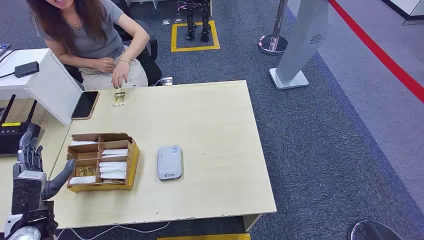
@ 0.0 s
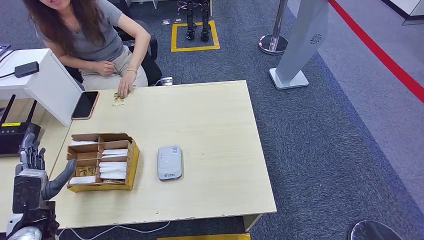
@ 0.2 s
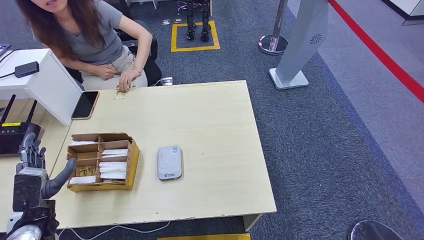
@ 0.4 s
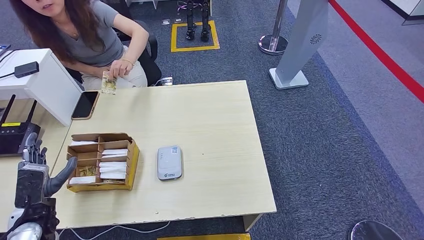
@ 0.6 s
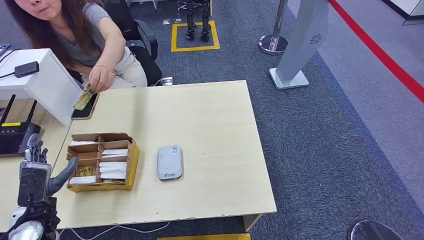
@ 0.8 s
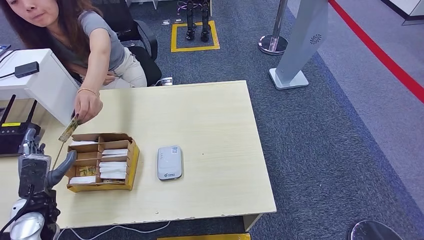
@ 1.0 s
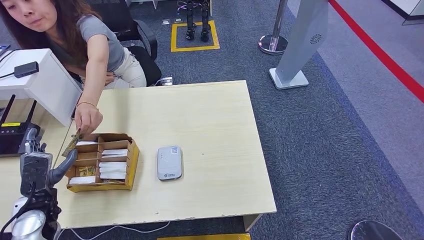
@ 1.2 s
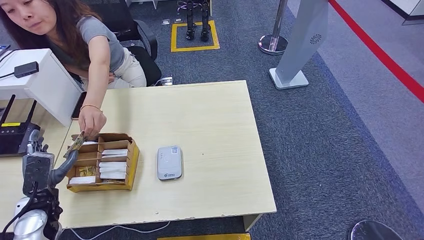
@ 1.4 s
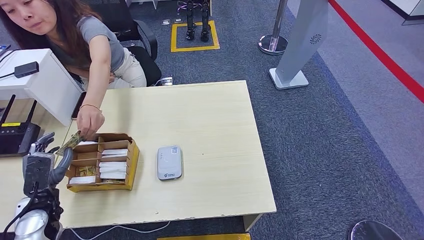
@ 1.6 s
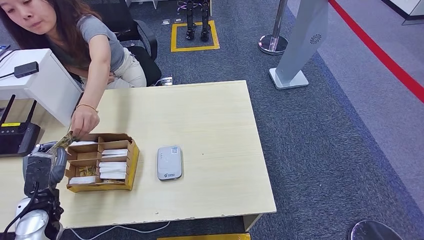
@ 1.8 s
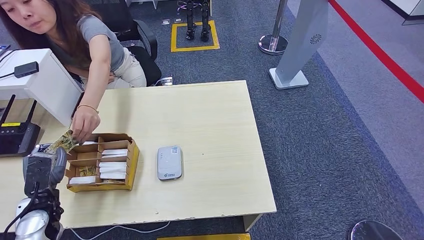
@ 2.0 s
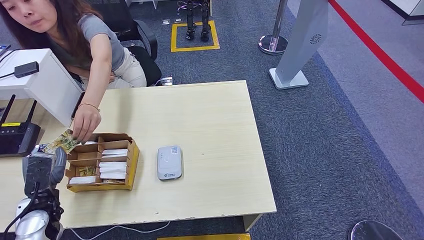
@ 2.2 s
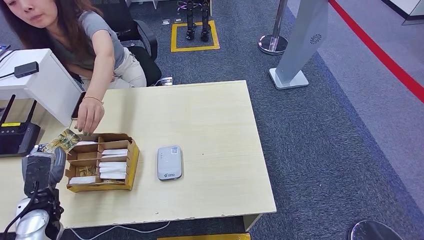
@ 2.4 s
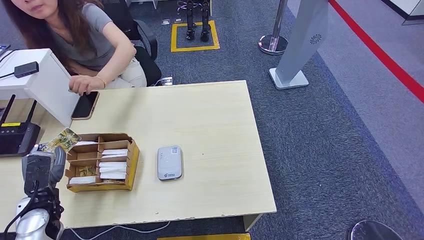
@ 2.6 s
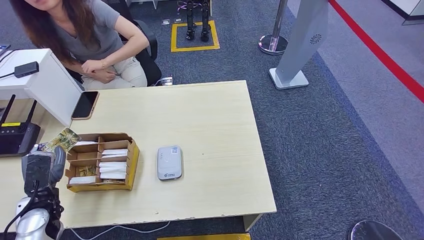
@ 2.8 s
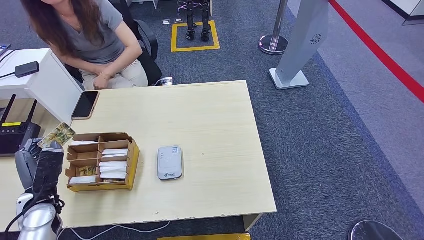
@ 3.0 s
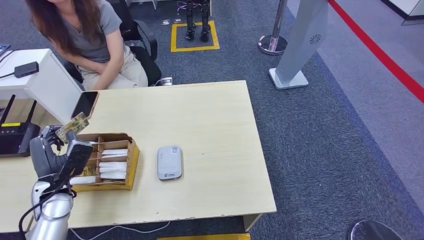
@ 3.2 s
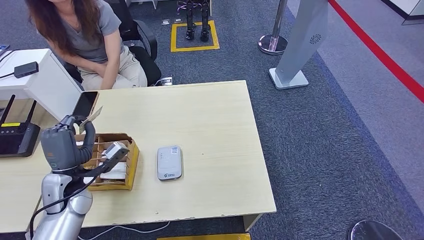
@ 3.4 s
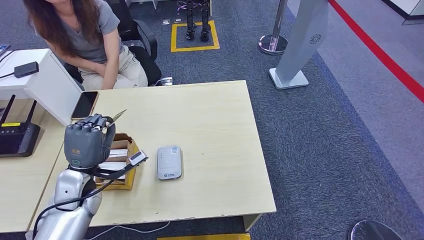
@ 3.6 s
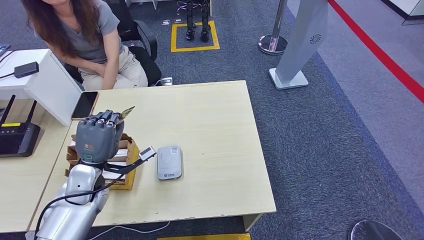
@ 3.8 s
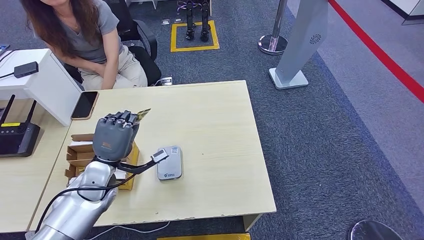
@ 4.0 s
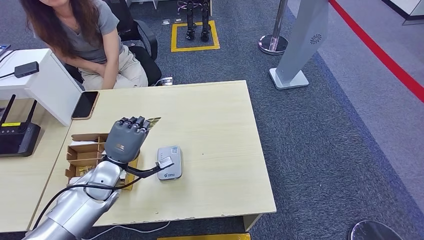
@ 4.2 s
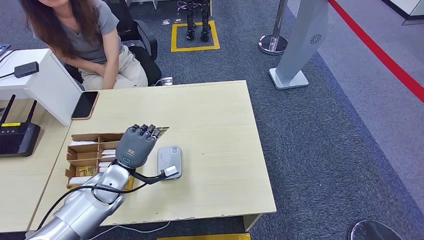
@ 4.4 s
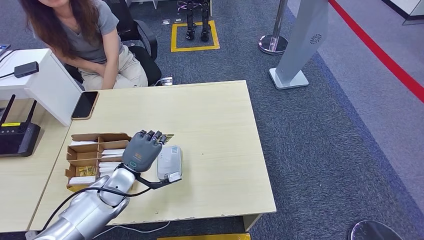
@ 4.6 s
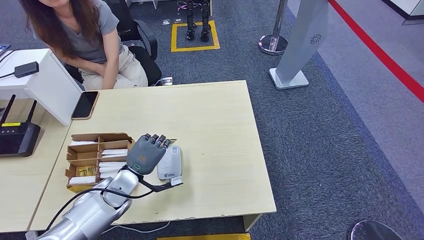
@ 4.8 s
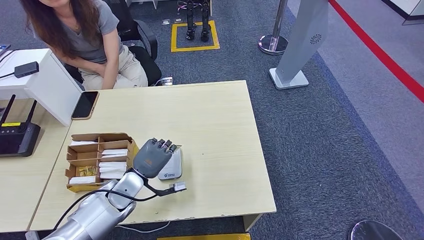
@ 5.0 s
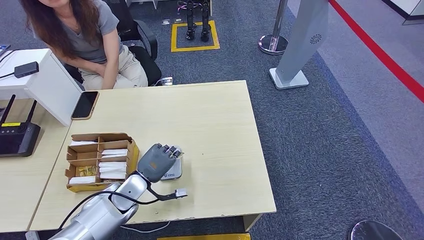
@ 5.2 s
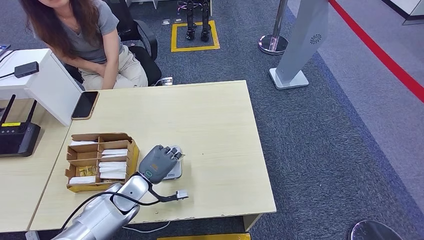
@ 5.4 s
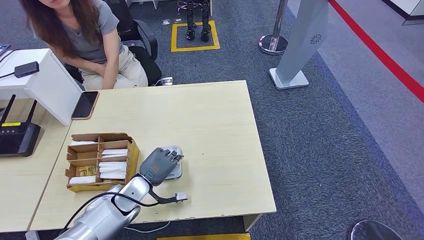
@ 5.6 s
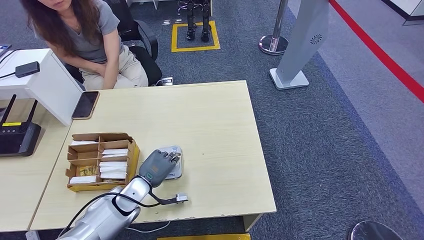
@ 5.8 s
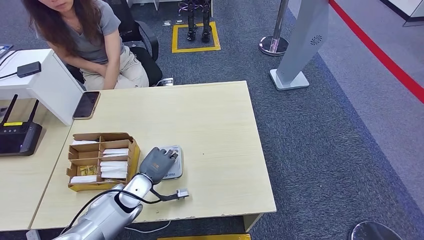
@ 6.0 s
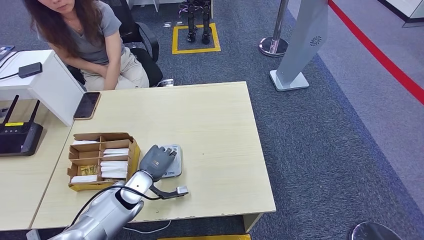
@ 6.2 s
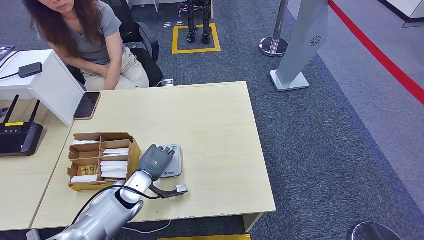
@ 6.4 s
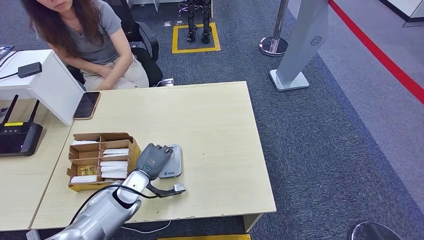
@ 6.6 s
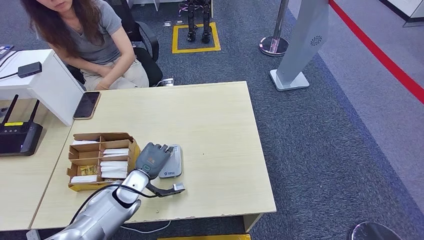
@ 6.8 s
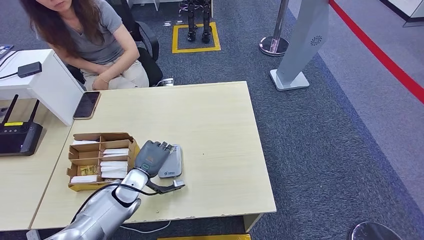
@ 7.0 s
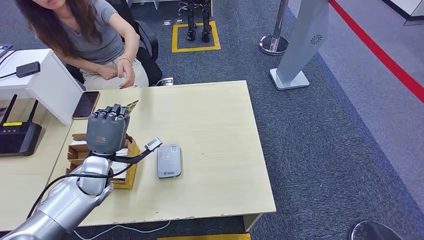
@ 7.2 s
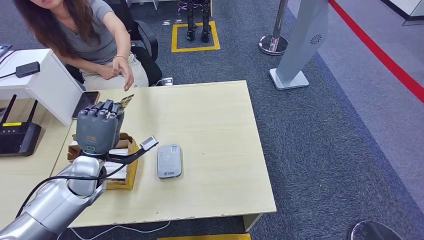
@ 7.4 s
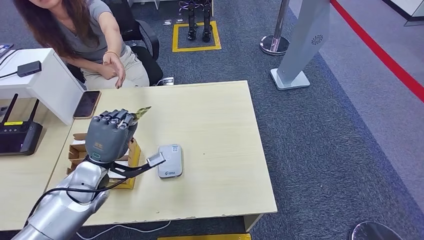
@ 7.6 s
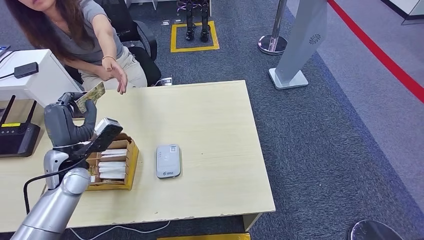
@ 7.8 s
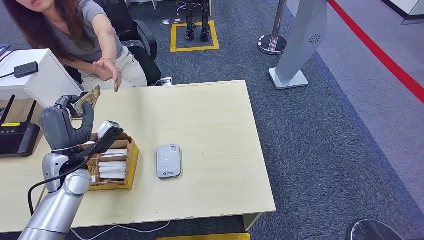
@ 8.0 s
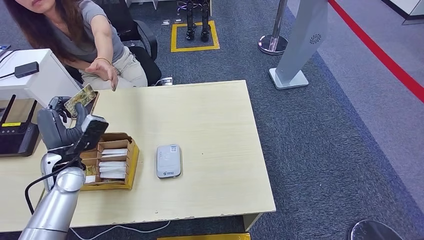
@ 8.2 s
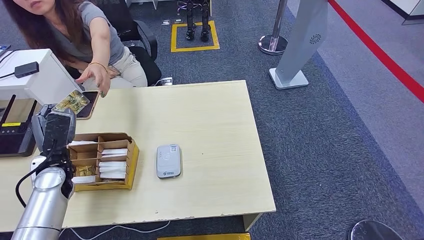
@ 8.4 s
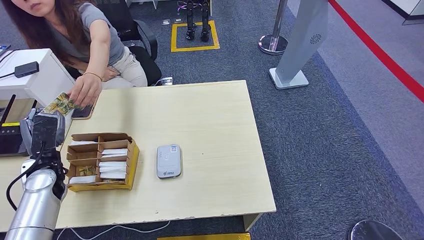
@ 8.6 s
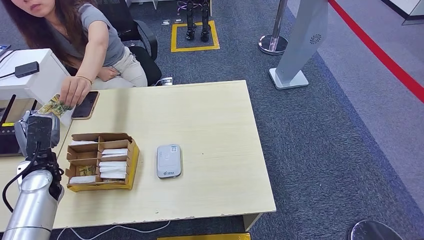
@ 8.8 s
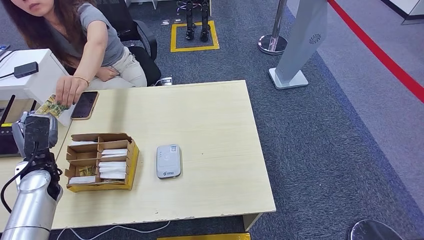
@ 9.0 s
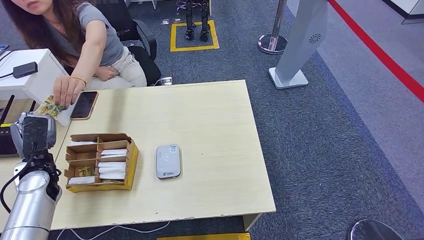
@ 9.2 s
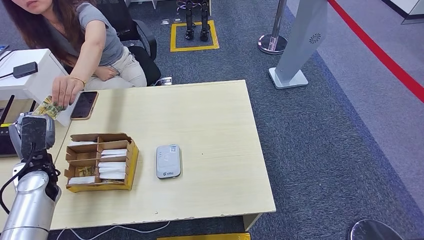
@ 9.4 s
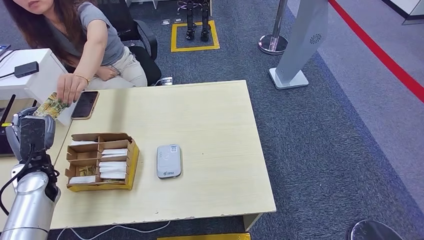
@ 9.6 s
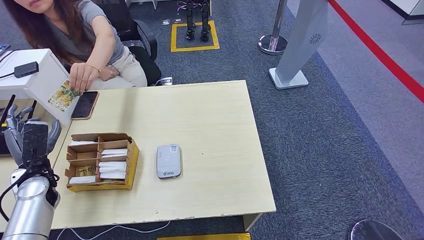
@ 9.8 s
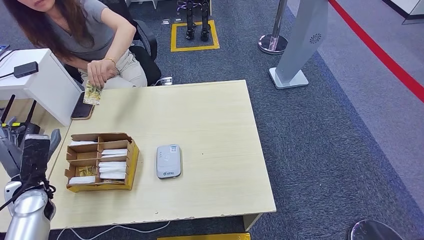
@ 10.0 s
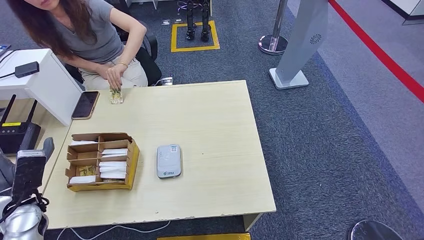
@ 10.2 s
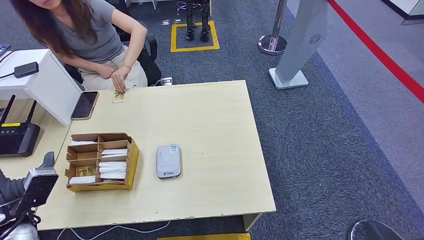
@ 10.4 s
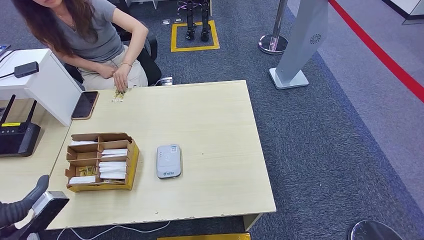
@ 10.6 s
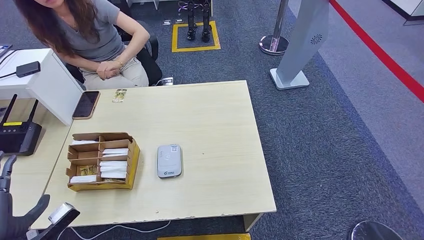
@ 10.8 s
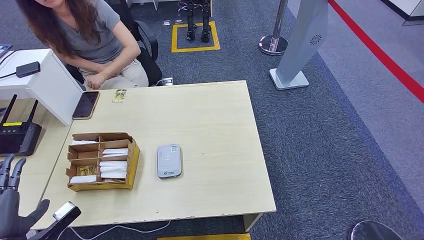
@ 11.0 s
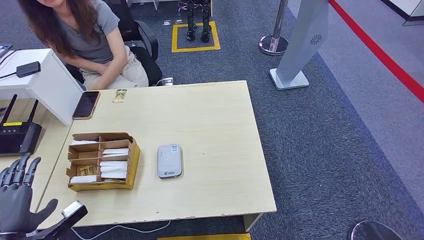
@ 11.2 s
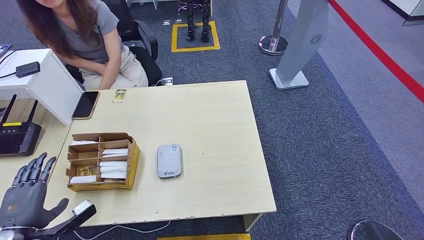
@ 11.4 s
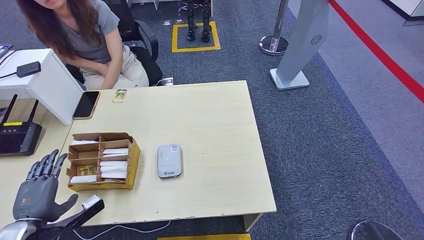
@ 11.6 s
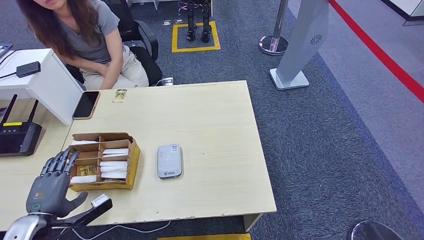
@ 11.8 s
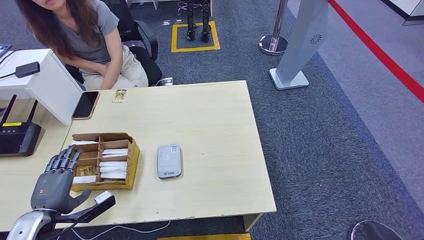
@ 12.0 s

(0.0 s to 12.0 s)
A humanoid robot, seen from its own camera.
Step, 0.0 s - 2.4 s: Take the ID card from the person's hand.
Step, 3.2 s - 6.4 s: Place the ID card on the card reader.
Step, 7.2 s - 9.6 s: Hand the ID card to the person.
1.6 s - 3.0 s: There are only small adjustments of the hands.
3.0 s - 4.4 s: The left hand heads to the right, covering roughly 15 cm.
4.4 s - 6.0 s: The left hand travels downward by some 5 cm.
6.0 s - 7.6 s: The left hand moves upward and to the left, roughly 15 cm.
9.0 s - 10.4 s: The left hand goes approximately 10 cm backward.
10.4 s - 12.0 s: The left hand reaches approximately 10 cm backward, then returns.

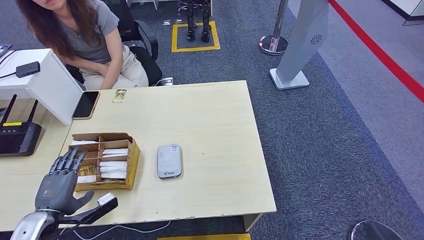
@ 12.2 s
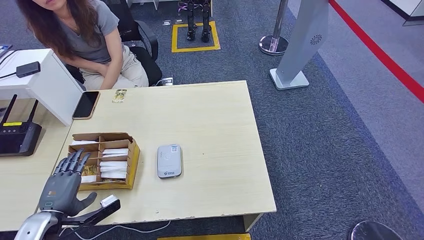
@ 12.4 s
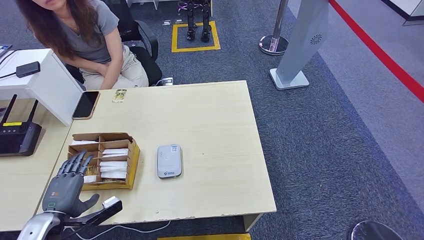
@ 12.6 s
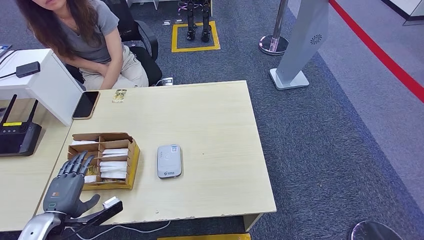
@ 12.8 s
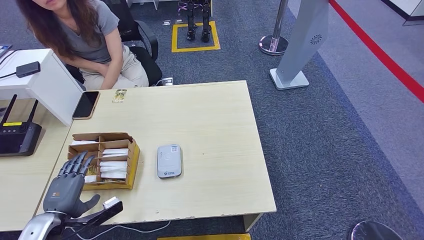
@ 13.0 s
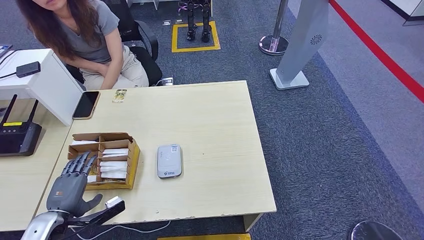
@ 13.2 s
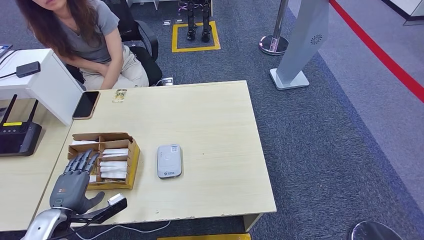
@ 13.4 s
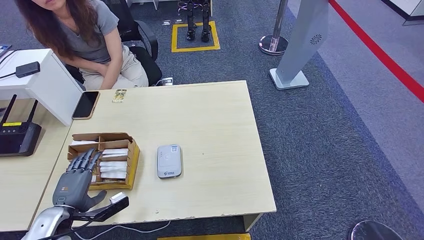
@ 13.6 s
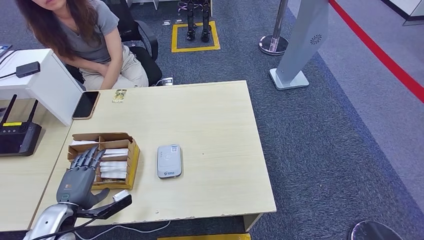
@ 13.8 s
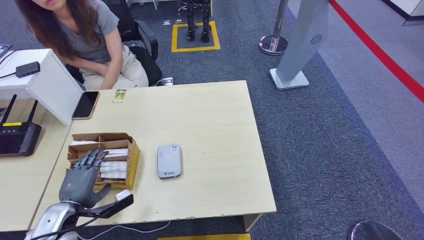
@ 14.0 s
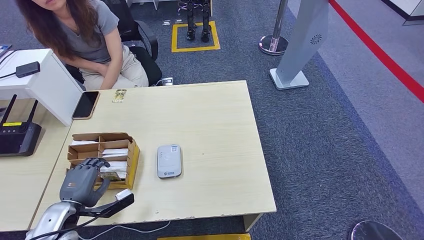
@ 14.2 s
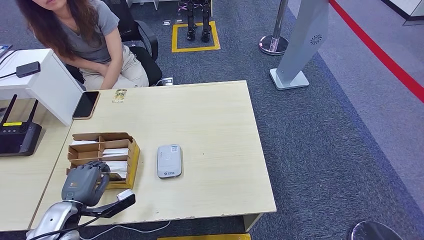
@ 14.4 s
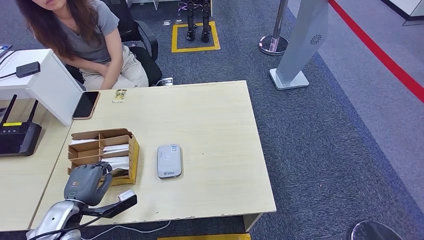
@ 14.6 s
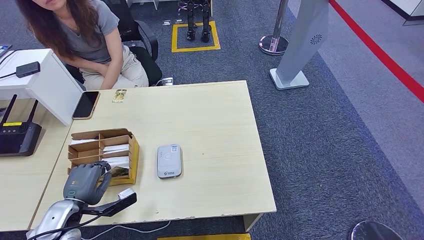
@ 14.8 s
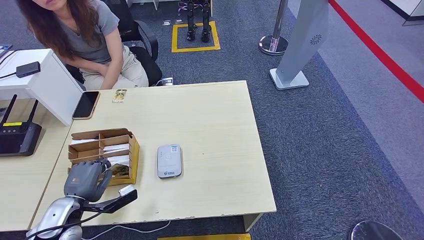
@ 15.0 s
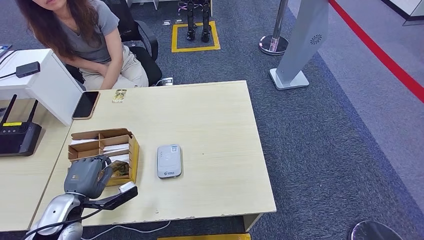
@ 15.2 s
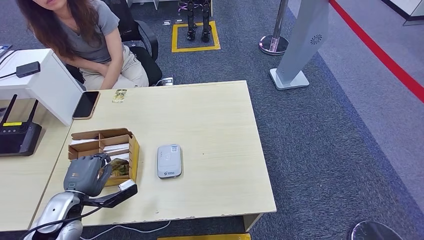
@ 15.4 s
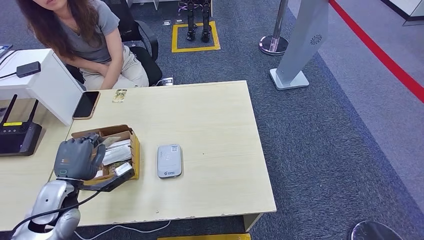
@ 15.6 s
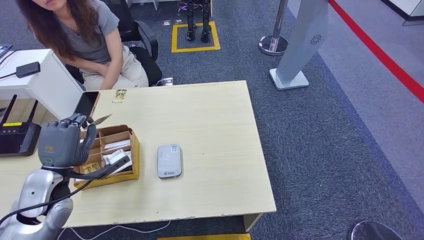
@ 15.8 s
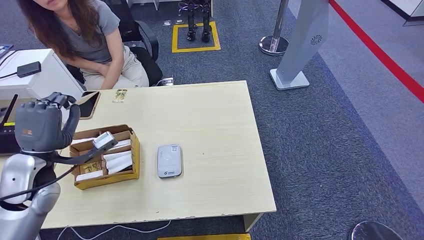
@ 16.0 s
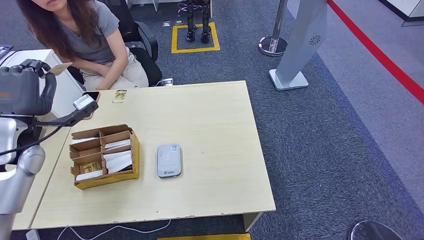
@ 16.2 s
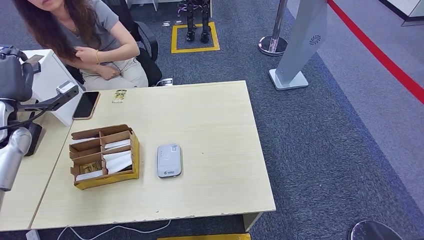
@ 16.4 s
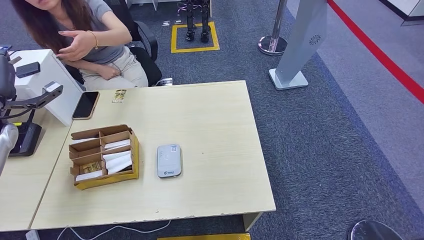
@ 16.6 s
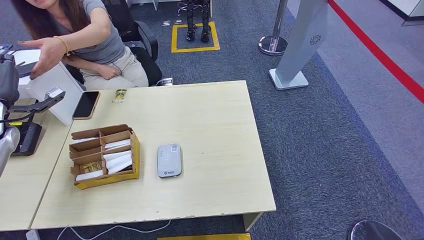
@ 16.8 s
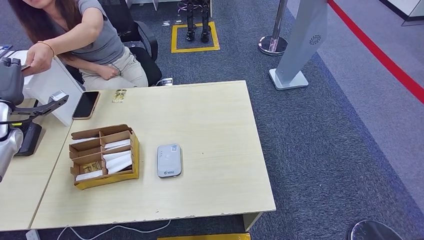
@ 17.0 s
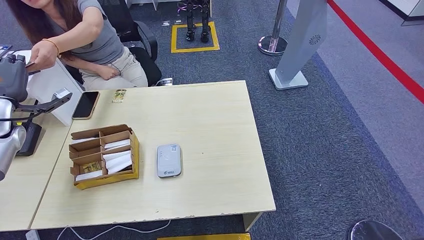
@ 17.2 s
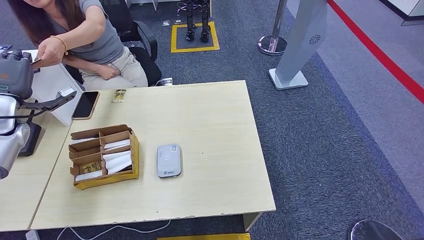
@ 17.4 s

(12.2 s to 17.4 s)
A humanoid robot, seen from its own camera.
Step, 13.0 s - 15.2 s: Pick up the room key from the key card box.
Step, 15.6 s - 17.4 s: Hand the room key to the person.
12.2 s - 14.0 s: The hands move only a little.
14.0 s - 15.6 s: The left hand ends up roughly 5 cm from where it was.
15.6 s - 17.4 s: The left hand heads forward, upward and to the left, covering some 25 cm, while the right hand is displaced forward by approximately 5 cm.
